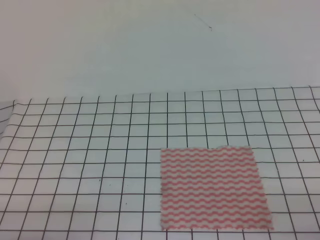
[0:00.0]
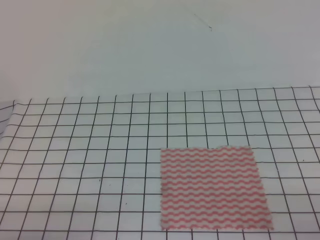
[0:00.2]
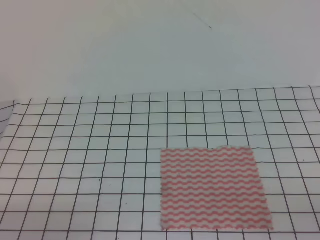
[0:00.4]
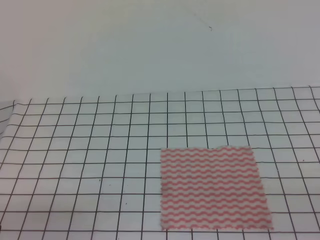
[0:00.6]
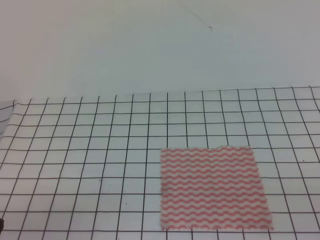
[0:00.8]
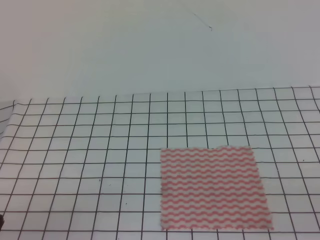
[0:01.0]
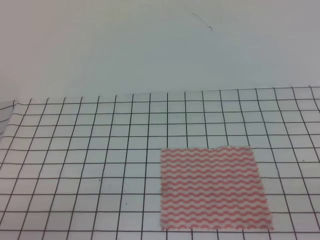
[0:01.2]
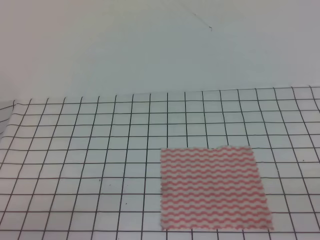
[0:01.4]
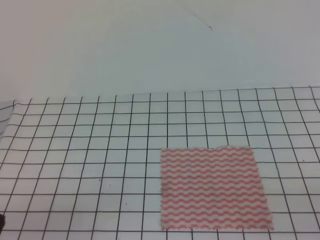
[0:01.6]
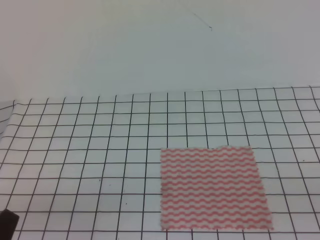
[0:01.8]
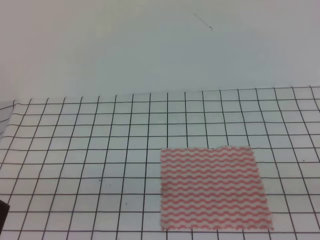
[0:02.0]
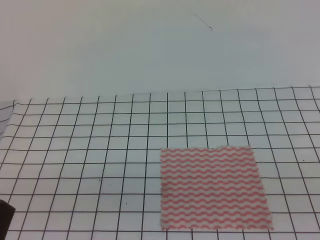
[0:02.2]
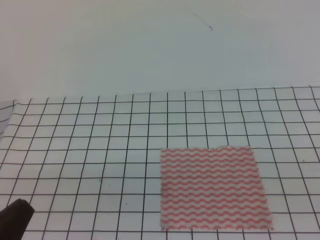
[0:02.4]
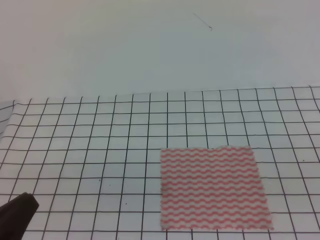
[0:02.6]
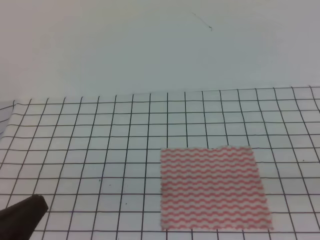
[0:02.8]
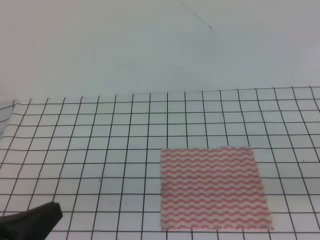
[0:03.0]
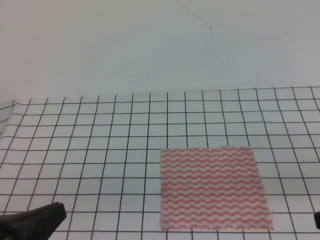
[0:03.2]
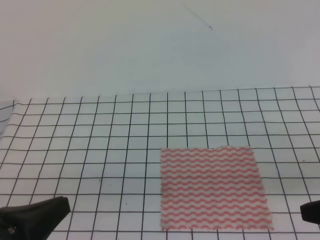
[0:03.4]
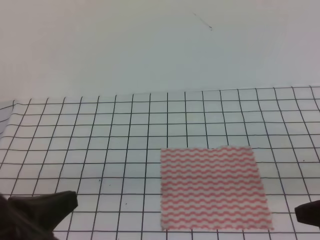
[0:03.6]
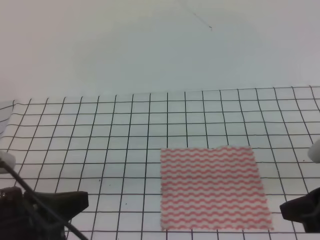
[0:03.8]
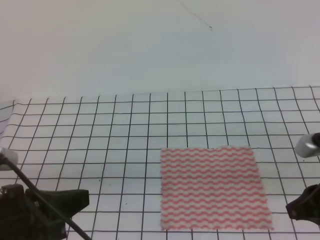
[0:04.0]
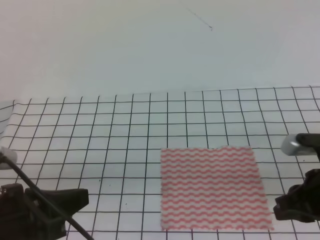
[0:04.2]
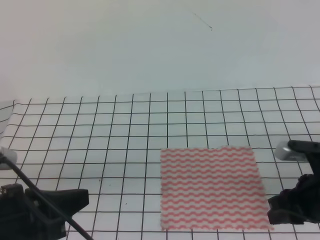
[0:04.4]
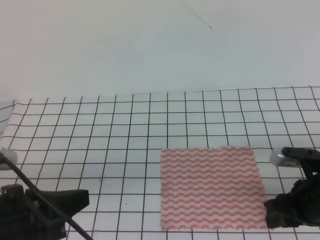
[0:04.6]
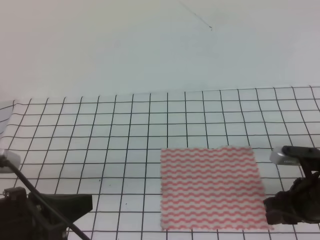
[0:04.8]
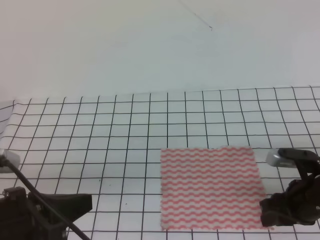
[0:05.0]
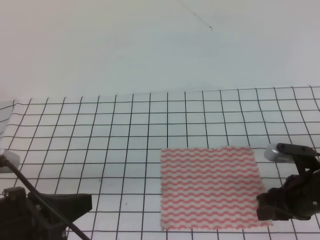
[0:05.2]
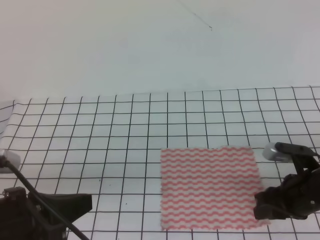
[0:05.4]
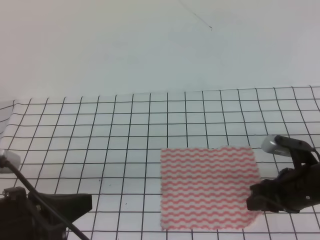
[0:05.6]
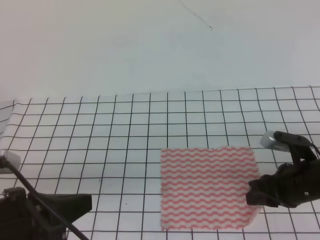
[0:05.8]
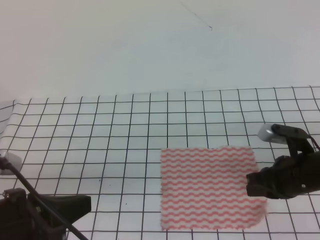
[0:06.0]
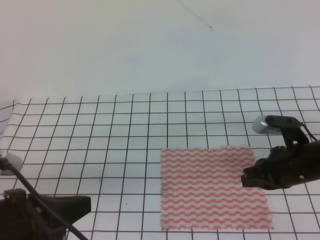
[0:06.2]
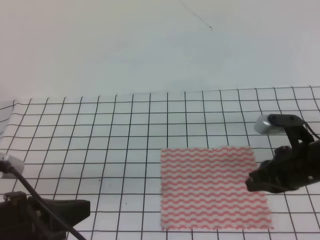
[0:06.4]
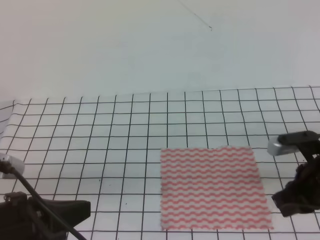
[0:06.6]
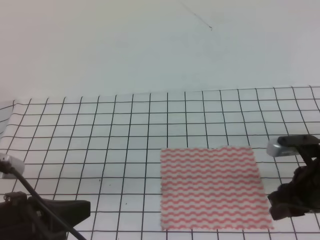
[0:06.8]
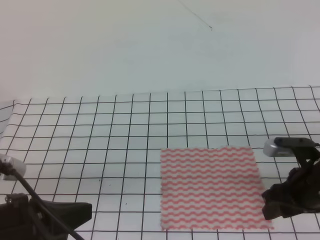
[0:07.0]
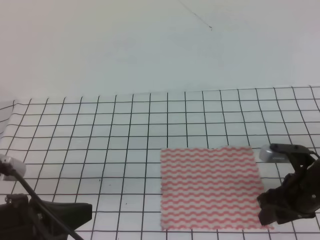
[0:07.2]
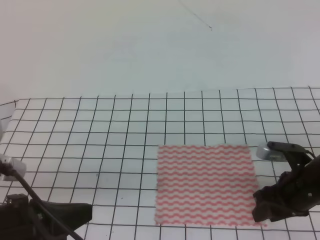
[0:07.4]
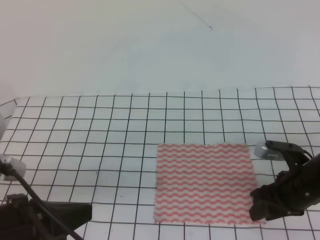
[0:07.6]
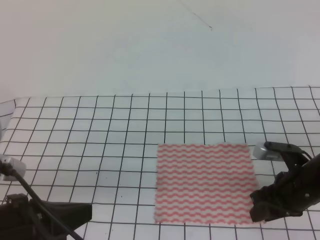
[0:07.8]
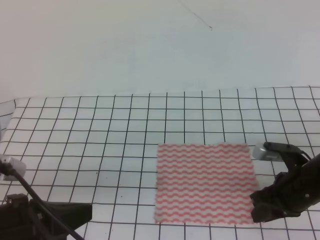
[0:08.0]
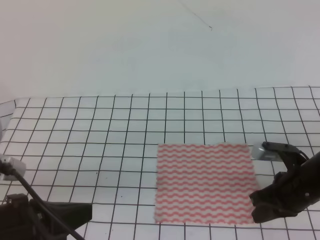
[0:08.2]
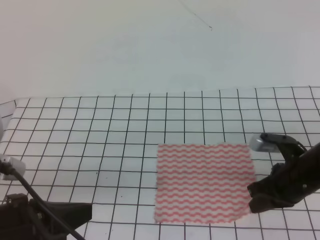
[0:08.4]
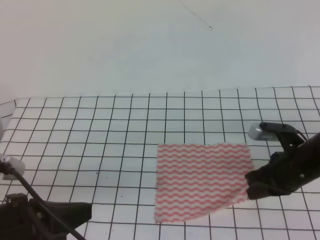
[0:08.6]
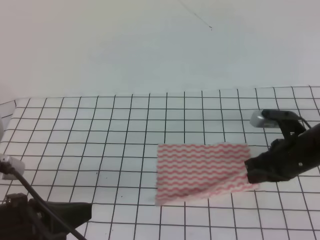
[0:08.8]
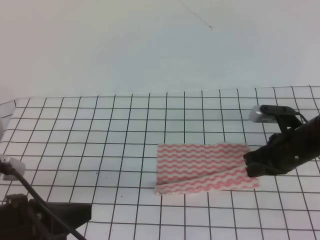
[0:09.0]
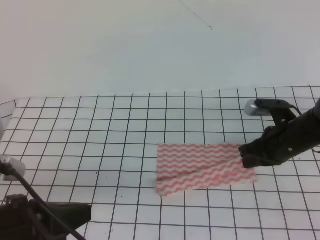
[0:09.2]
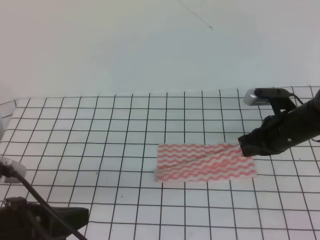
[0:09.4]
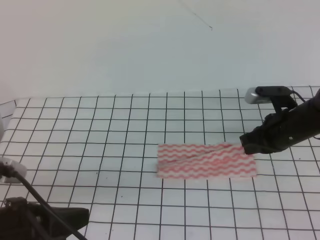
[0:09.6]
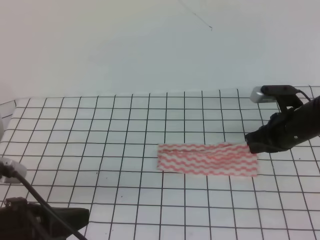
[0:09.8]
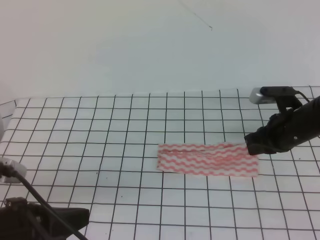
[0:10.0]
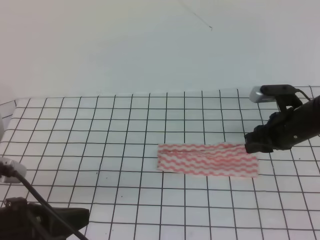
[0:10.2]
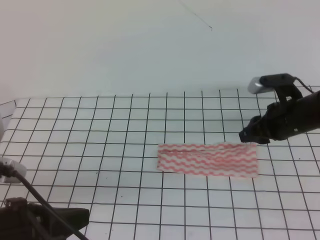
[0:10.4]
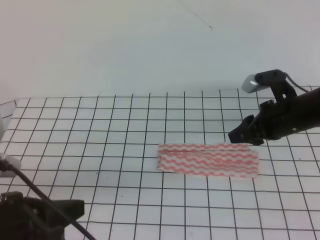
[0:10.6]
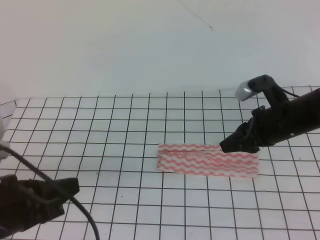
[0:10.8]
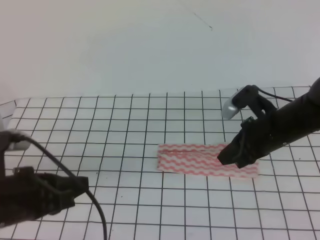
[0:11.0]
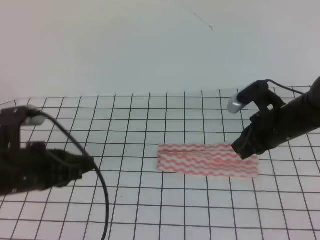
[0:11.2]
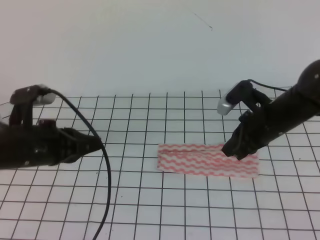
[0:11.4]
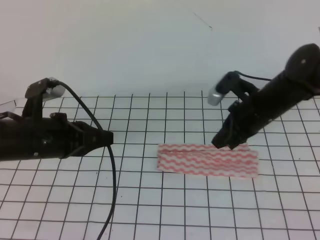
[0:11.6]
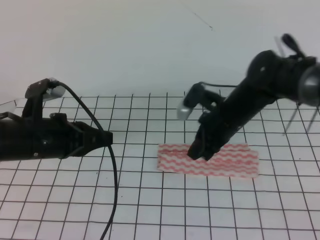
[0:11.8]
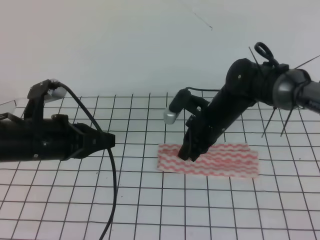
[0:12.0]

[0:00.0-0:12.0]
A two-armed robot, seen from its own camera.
0:01.6 to 0:03.0: The left gripper shifts some 5 cm upward.
0:03.0 to 0:04.4: The right gripper heads forward and downward, covering about 15 cm, and opens its fingers. Meanwhile the left gripper heads forward, covering roughly 5 cm.
0:04.4 to 0:06.0: The right gripper ends up approximately 5 cm from where it was, and opens, then closes again.
0:06.0 to 0:07.6: The right gripper opens.
0:07.6 to 0:09.0: The right gripper travels forward by some 5 cm, and closes.
0:09.0 to 0:10.4: The right gripper opens its fingers.
0:10.4 to 0:12.0: The left gripper travels forward by approximately 15 cm. The right gripper heads to the left, covering some 15 cm, and closes up.

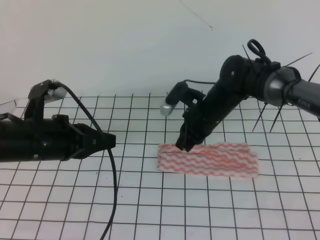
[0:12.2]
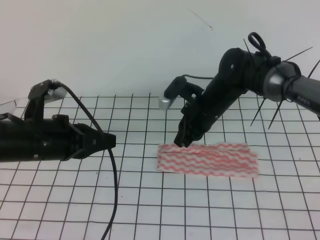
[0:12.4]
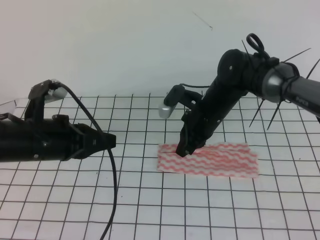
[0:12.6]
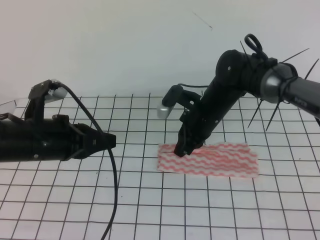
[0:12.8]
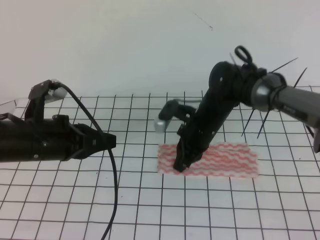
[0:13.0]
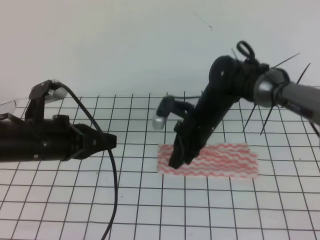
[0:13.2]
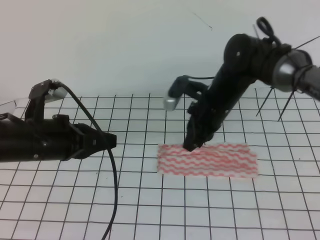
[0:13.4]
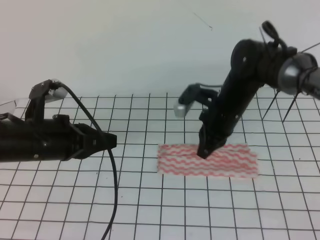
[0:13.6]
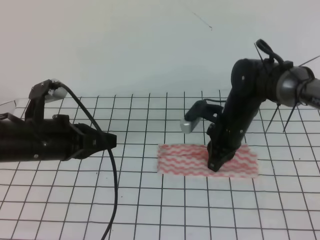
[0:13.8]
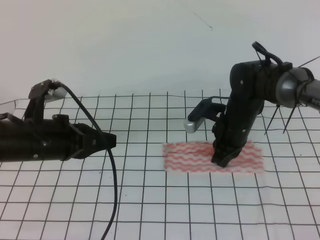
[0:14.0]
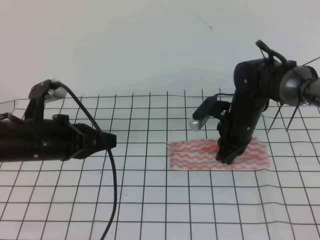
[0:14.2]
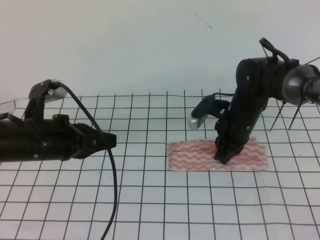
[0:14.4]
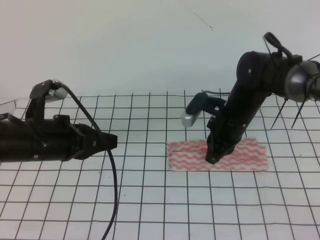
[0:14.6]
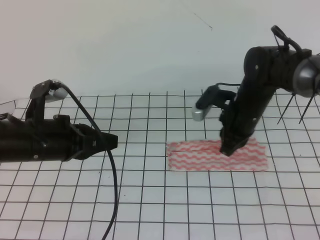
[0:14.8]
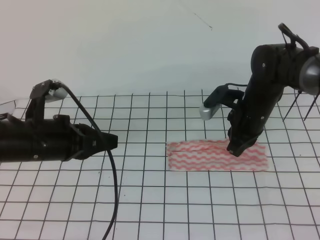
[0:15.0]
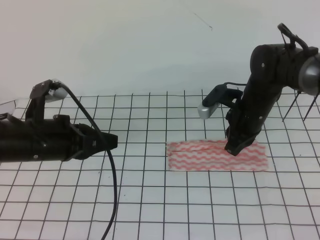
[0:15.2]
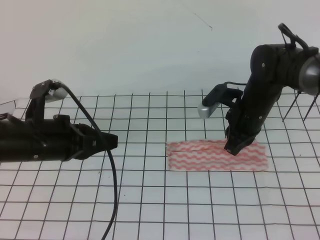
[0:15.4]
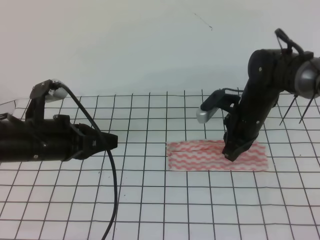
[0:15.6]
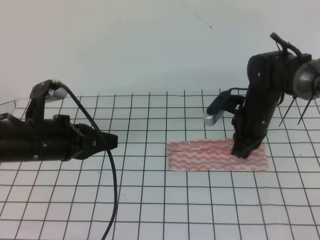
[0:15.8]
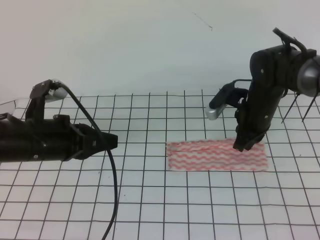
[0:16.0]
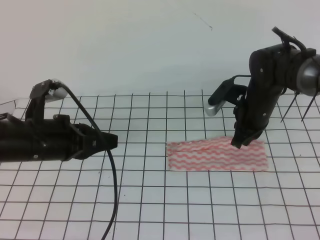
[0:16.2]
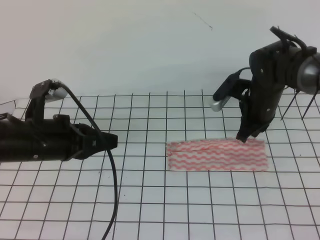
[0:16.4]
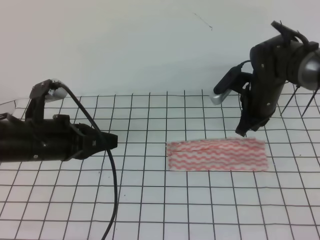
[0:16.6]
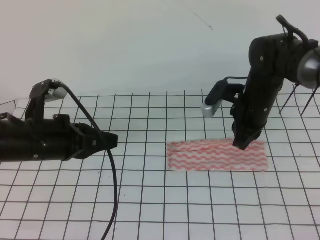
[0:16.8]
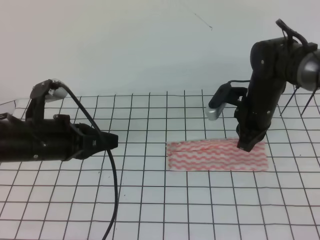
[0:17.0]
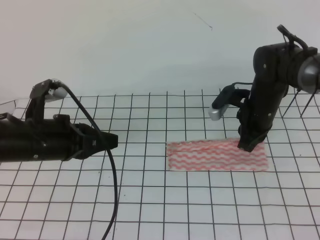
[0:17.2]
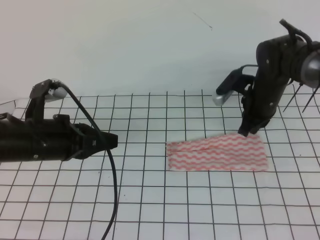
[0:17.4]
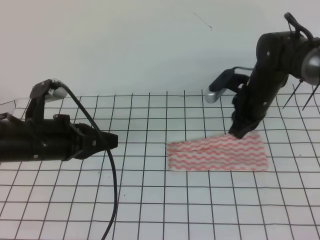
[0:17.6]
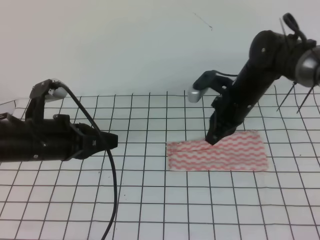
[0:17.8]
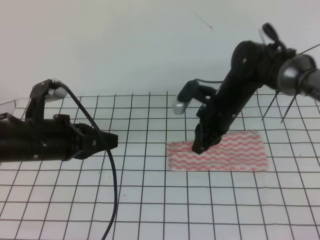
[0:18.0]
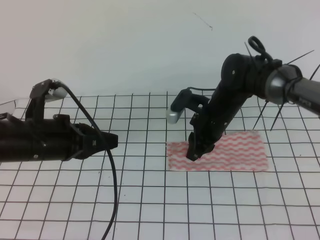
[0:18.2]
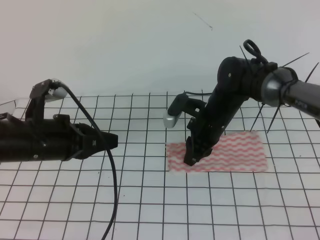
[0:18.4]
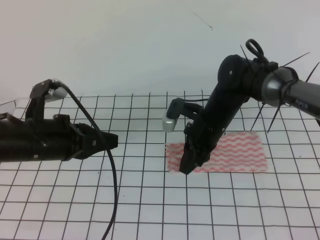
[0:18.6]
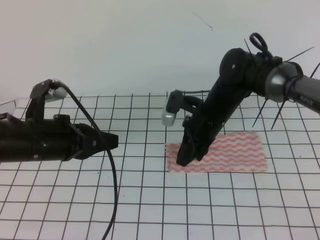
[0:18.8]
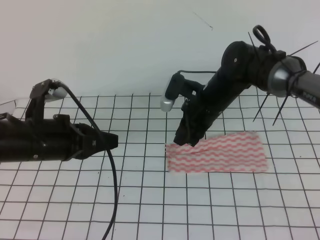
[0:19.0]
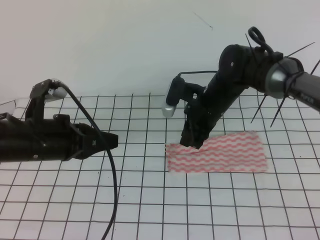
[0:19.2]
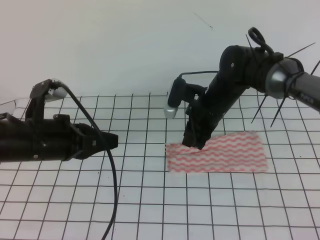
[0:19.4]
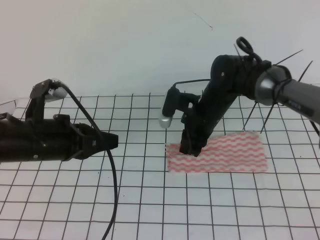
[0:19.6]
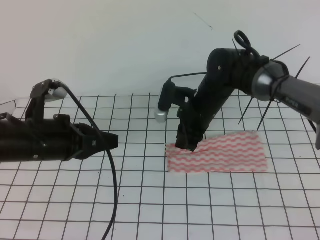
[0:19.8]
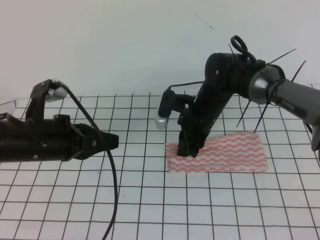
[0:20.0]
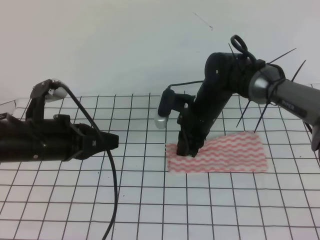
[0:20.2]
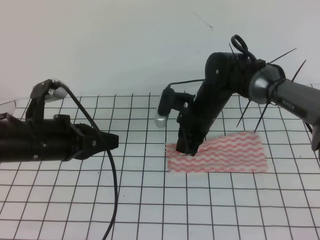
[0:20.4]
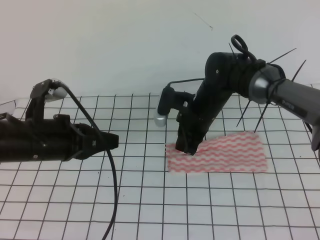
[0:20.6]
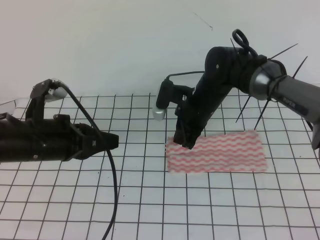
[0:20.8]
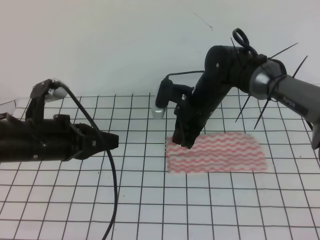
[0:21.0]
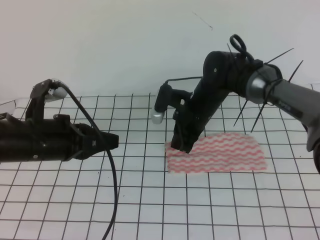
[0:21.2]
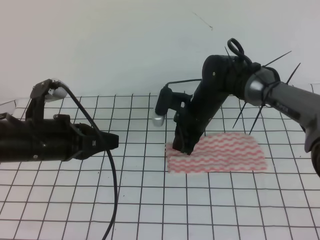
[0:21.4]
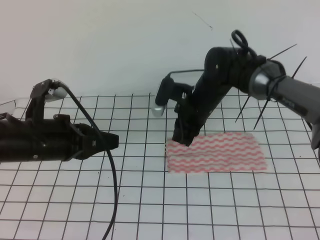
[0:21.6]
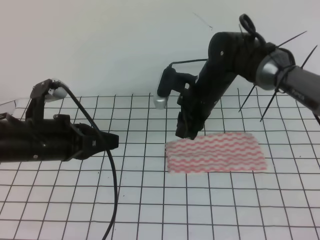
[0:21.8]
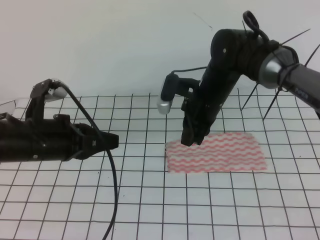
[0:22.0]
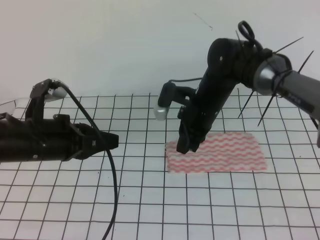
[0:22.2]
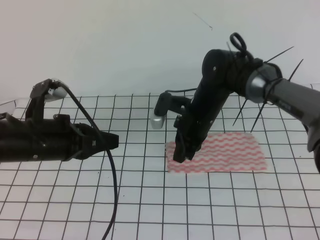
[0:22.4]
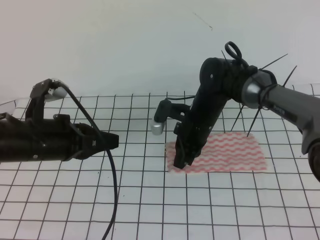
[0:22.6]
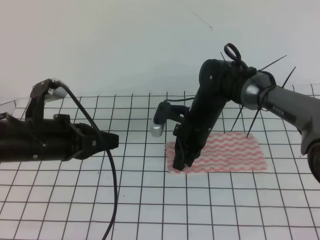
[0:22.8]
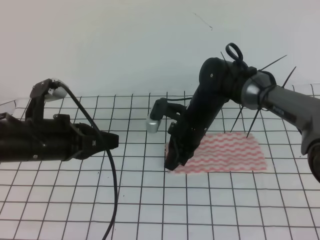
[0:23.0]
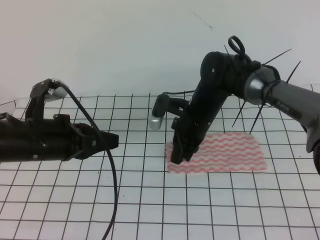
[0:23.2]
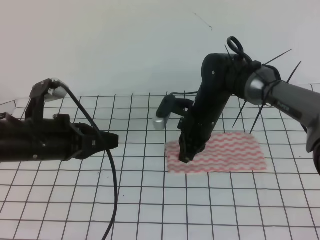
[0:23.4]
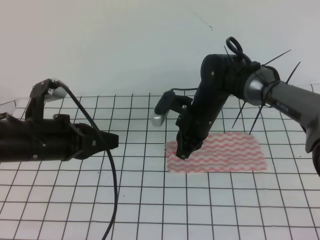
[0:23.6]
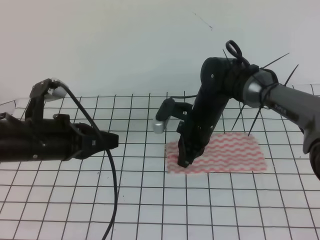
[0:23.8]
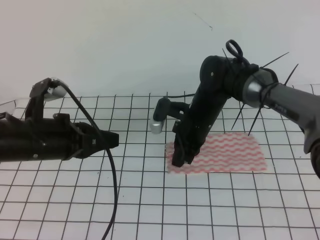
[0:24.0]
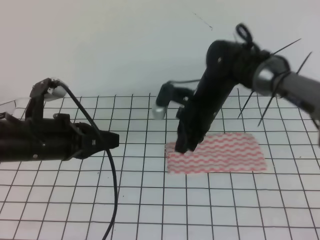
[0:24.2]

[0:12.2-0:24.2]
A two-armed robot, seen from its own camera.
0:12.2 to 0:13.8: The grippers stay close to where they were, moving slightly.
0:15.2 to 0:16.6: The grippers stay close to where they were, moving slightly.
0:16.6 to 0:18.2: The right gripper moves to the left, some 5 cm, and opens its fingers.
0:18.2 to 0:19.8: The grippers stay close to where they were, moving slightly.
0:19.8 to 0:21.2: The right gripper closes.
0:21.2 to 0:22.6: The right gripper opens, then closes once more.
0:22.6 to 0:24.2: The grippers move only a little.
